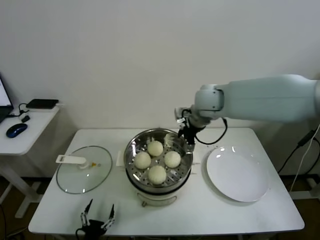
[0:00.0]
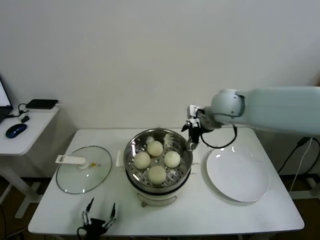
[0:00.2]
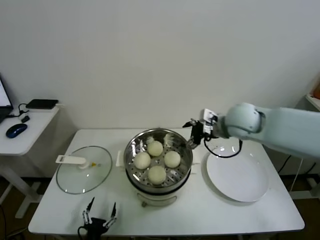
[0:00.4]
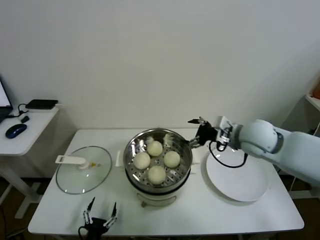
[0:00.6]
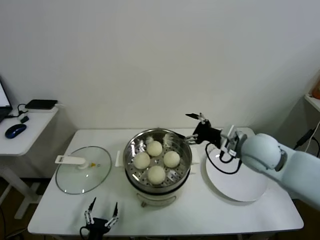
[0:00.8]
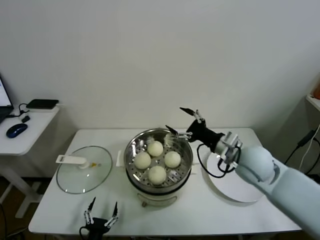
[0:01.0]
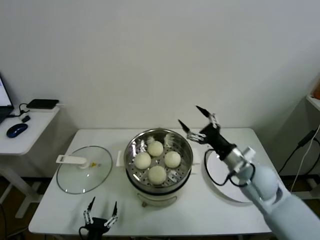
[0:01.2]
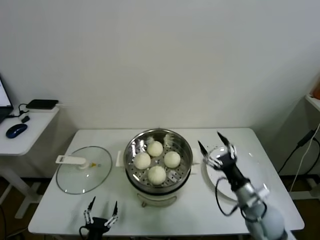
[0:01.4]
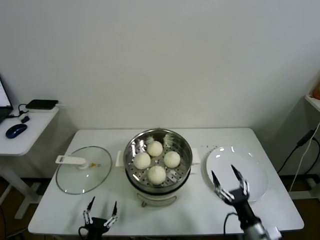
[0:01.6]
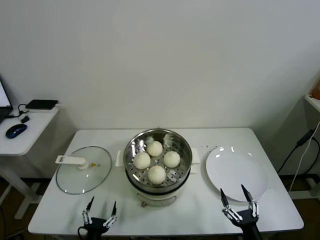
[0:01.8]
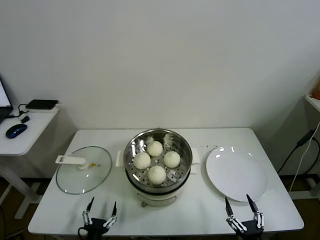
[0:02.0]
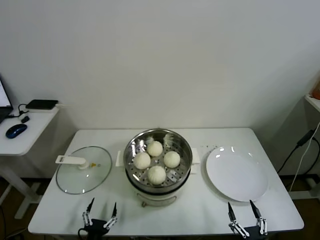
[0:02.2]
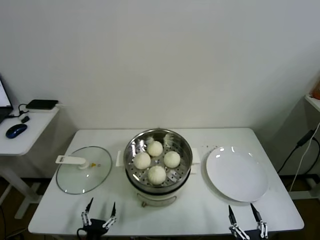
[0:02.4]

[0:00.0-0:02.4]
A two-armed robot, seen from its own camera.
Task of the whole recording: take steamed baozi put them in steamer.
0:00.0 to 0:01.2: The right gripper moves backward, downward and to the right, approximately 25 cm.
0:01.2 to 0:02.4: The right gripper travels backward and downward by some 35 cm.

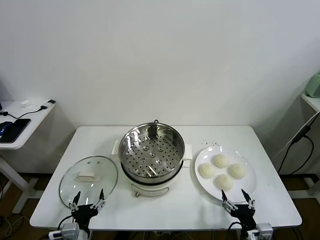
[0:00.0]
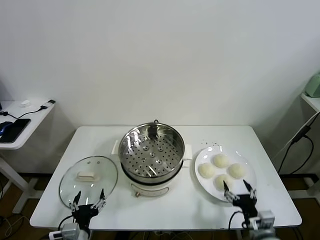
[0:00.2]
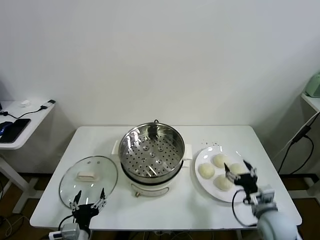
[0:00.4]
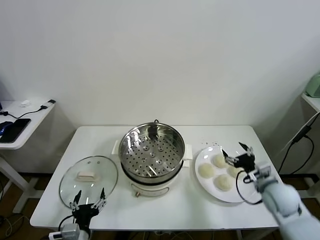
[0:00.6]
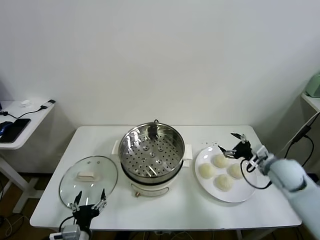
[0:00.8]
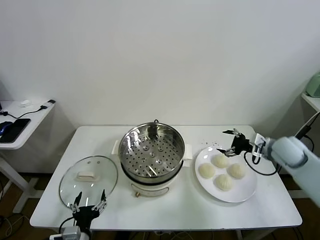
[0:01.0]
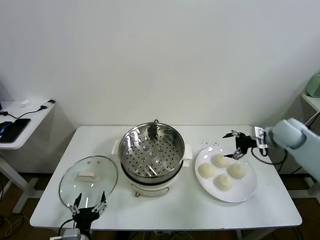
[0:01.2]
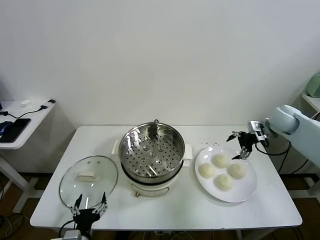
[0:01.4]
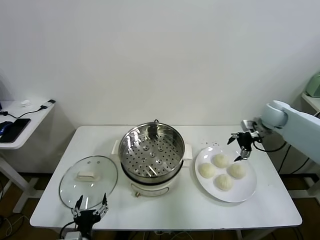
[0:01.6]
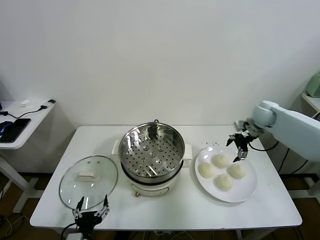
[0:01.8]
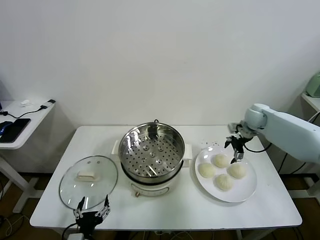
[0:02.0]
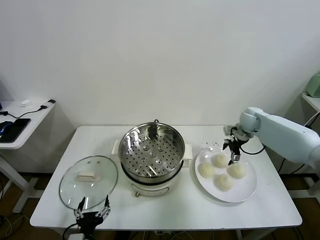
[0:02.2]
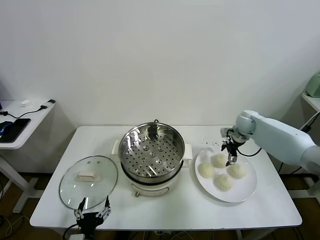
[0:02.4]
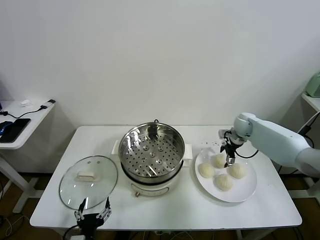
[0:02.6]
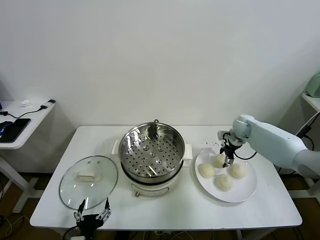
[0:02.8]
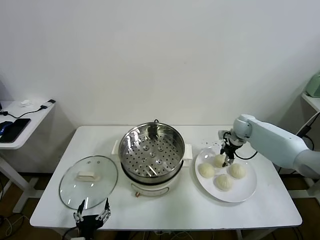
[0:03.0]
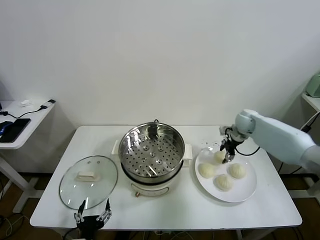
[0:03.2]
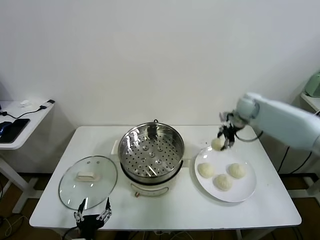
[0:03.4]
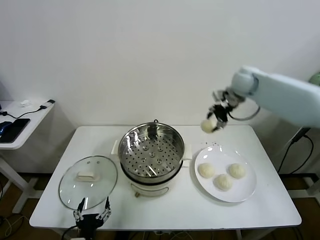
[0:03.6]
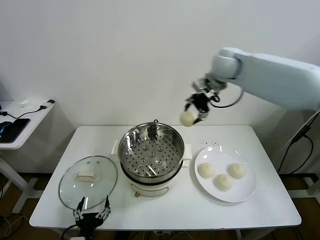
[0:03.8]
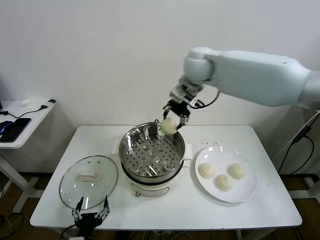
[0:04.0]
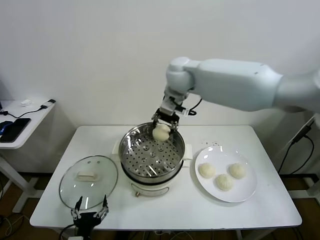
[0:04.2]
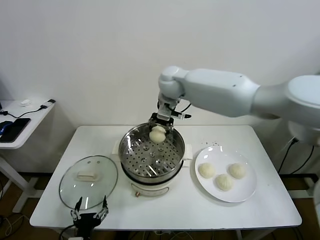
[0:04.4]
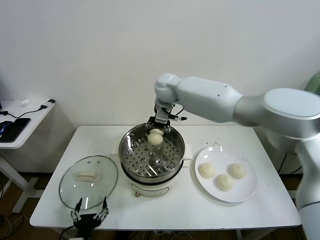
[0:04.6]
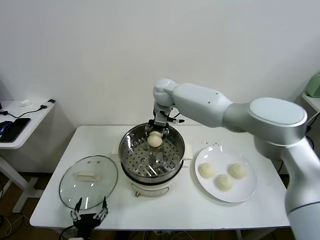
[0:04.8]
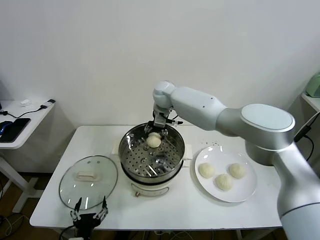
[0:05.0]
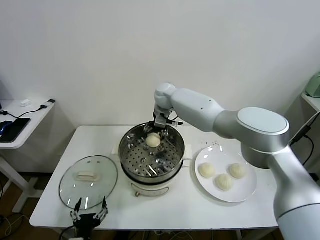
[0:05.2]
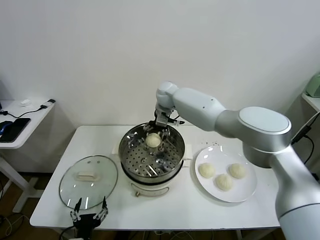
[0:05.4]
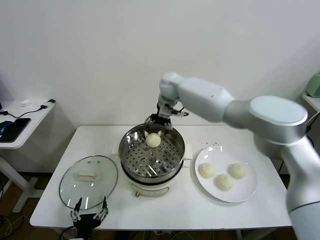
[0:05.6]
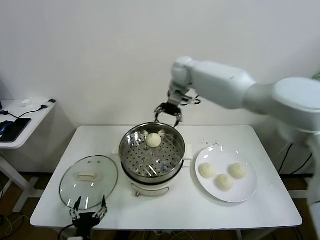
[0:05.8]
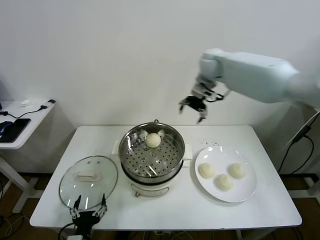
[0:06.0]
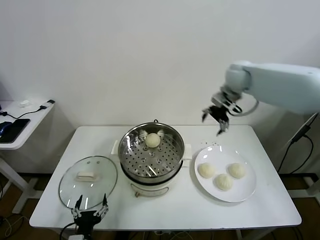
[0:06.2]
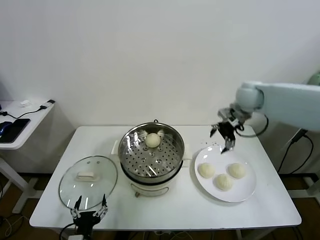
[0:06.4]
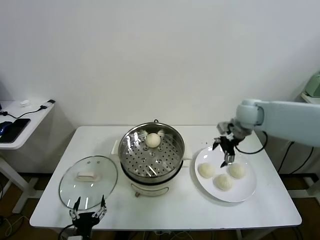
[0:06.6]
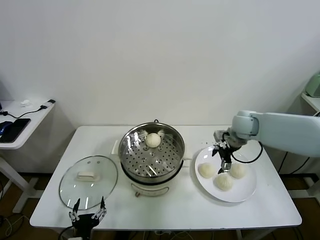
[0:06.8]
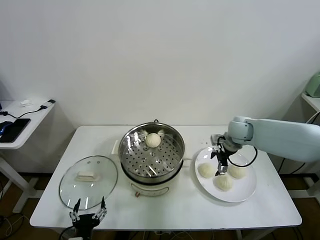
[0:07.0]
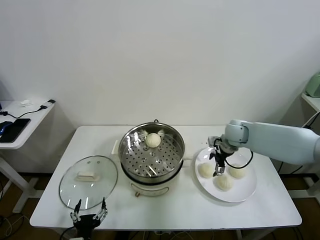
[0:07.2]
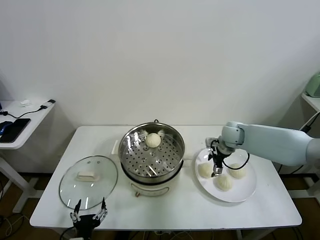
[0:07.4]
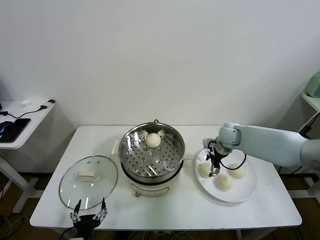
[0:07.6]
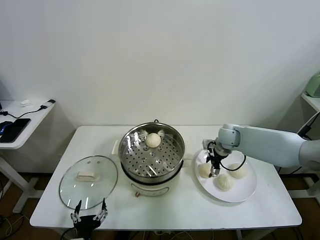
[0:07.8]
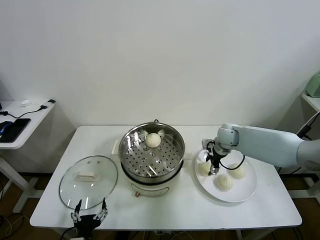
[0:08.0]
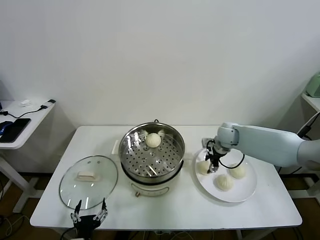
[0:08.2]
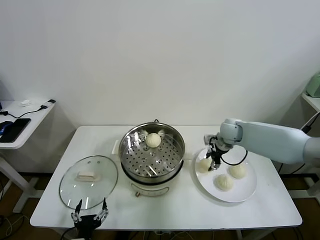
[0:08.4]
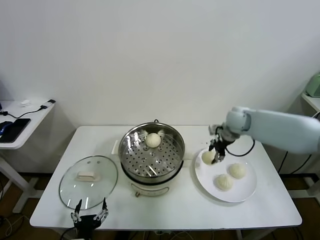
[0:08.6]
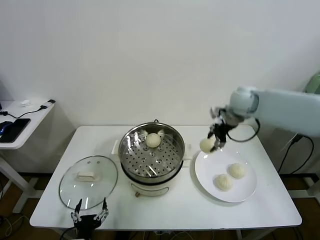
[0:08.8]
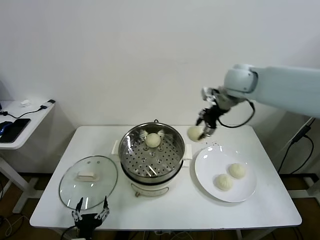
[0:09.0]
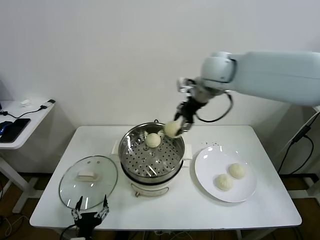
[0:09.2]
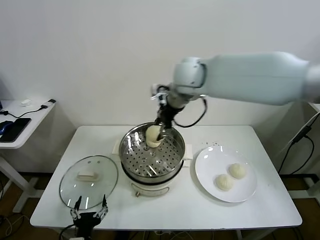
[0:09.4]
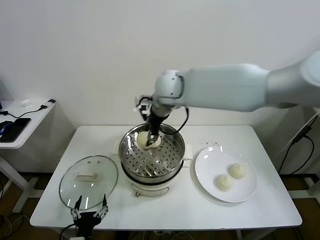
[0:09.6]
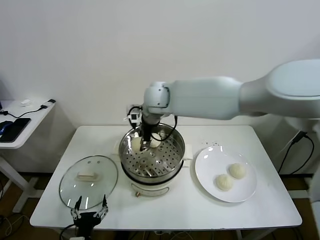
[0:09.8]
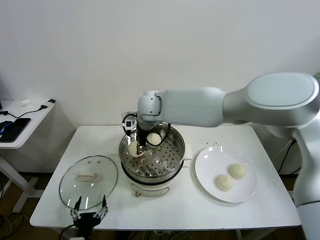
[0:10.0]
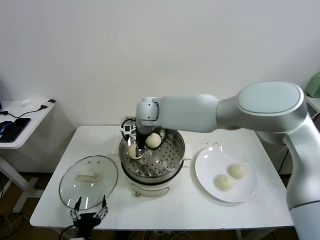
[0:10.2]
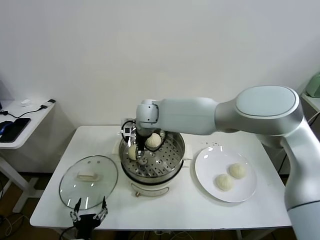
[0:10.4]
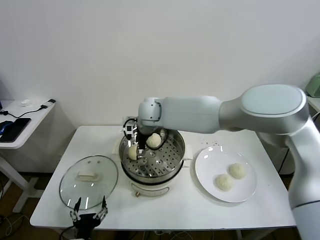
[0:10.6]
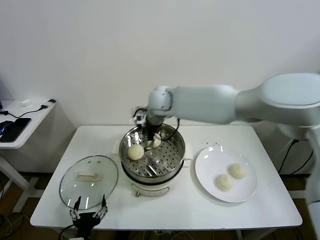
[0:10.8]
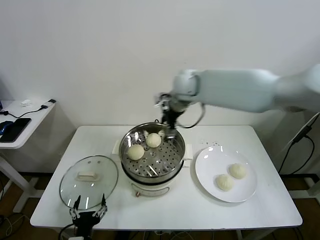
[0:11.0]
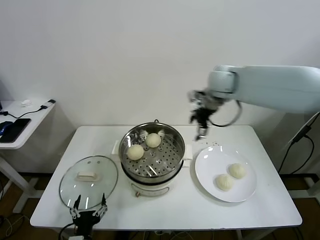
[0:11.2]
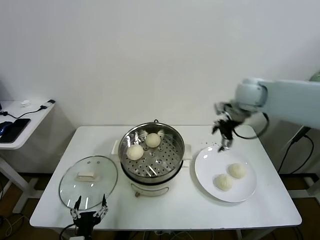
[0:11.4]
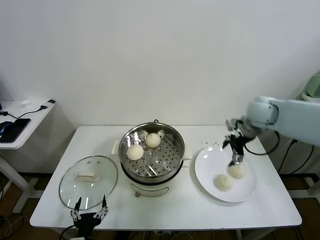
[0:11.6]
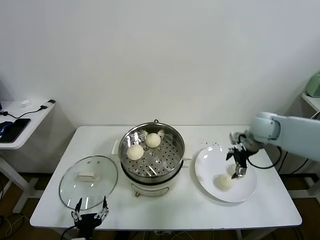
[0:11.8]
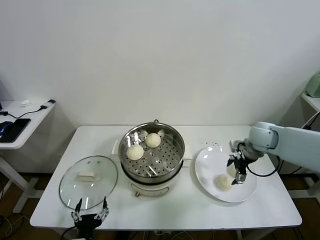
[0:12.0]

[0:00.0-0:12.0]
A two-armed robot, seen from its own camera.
Task of the whole recording: take steamed baozi put them in steamer.
Step, 0:00.0 to 0:02.8: Grasp the baozi in the plate with right gripper.
Step, 0:03.0 to 0:05.4: Place the baozi on the steamer with right gripper.
Step, 0:05.6 to 0:08.0: Grasp the baozi in the plate with right gripper.
Step, 0:08.2 to 0:10.4: Place the baozi on the steamer with right gripper.
0:01.6 to 0:03.0: The right gripper heads downward, covering approximately 10 cm, and closes.
0:03.0 to 0:04.4: The right gripper shifts about 35 cm to the left and upward.
0:04.4 to 0:06.0: The right gripper goes roughly 20 cm to the right, and opens its fingers.
0:06.0 to 0:07.6: The right gripper goes roughly 25 cm downward.
0:07.6 to 0:09.0: The right gripper travels upward by some 25 cm, and closes.
0:09.0 to 0:10.4: The right gripper heads to the left and downward, covering approximately 30 cm, and opens its fingers.
0:10.4 to 0:12.0: The right gripper shifts some 40 cm to the right, and opens its fingers.

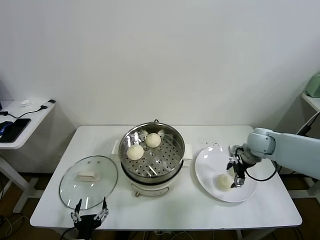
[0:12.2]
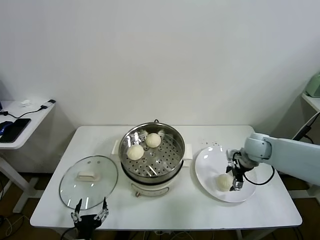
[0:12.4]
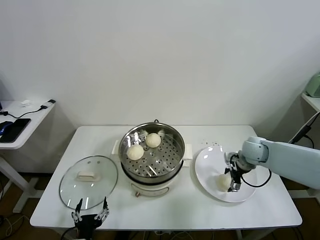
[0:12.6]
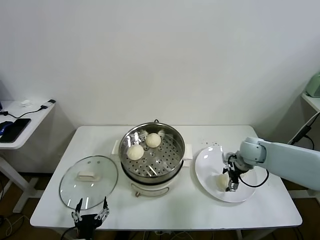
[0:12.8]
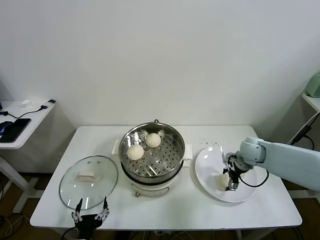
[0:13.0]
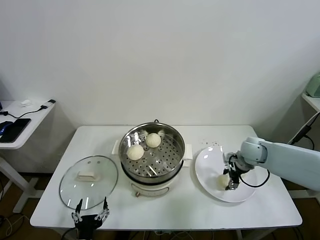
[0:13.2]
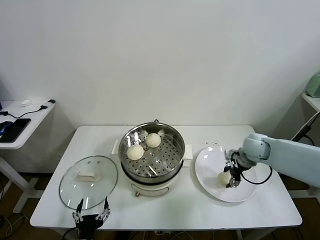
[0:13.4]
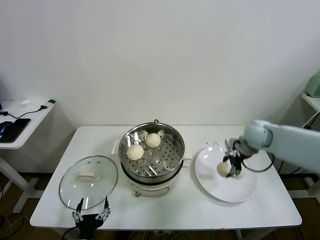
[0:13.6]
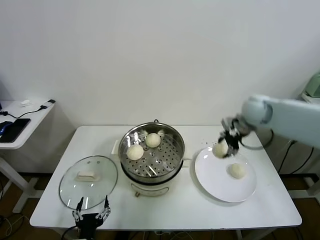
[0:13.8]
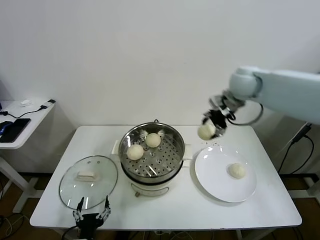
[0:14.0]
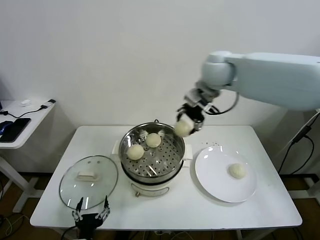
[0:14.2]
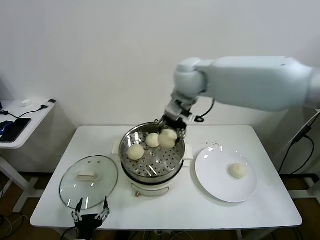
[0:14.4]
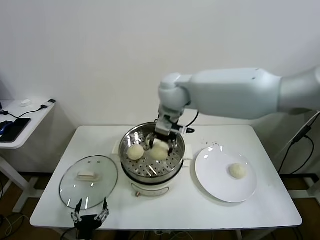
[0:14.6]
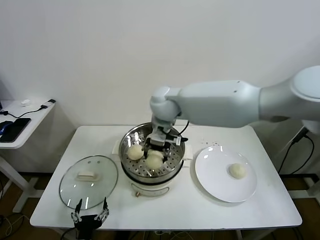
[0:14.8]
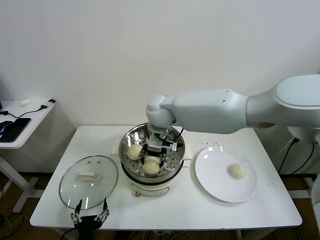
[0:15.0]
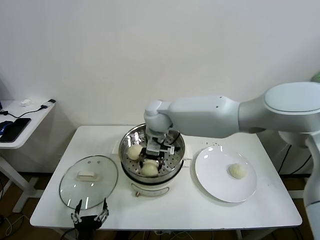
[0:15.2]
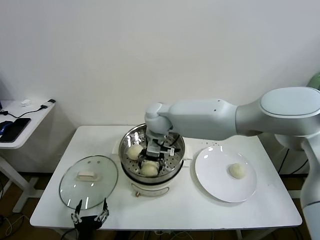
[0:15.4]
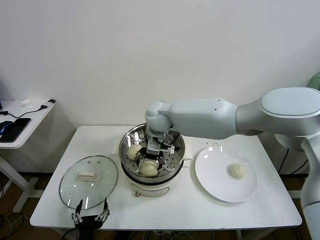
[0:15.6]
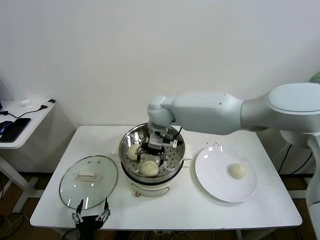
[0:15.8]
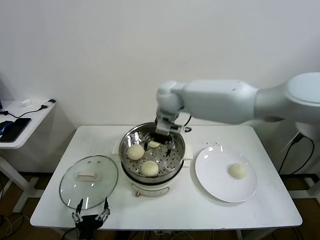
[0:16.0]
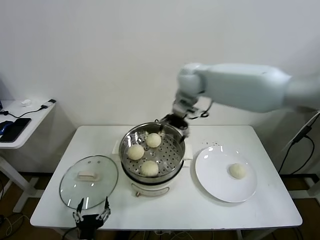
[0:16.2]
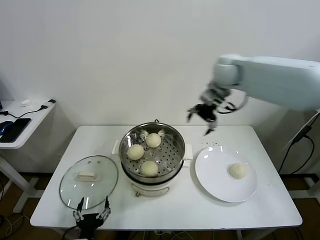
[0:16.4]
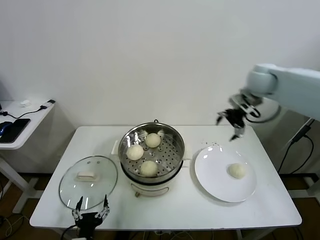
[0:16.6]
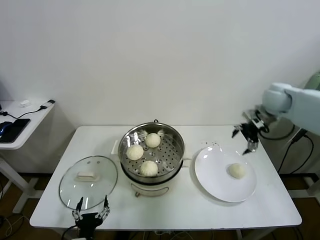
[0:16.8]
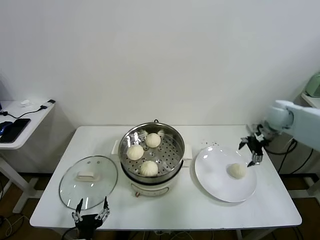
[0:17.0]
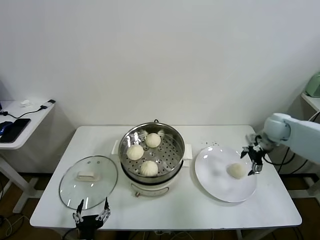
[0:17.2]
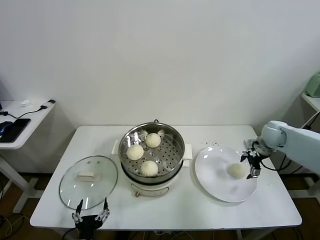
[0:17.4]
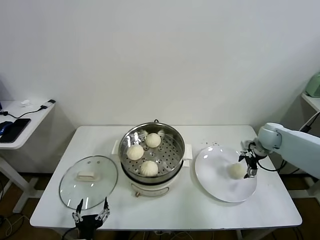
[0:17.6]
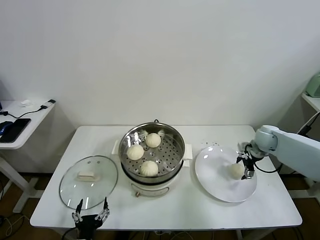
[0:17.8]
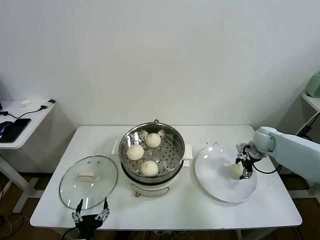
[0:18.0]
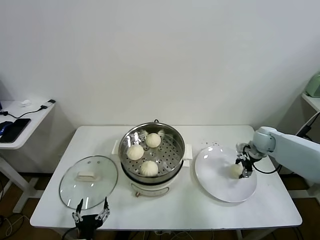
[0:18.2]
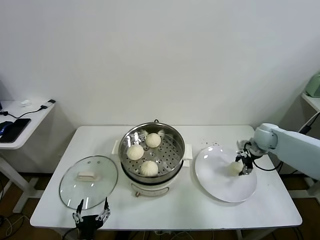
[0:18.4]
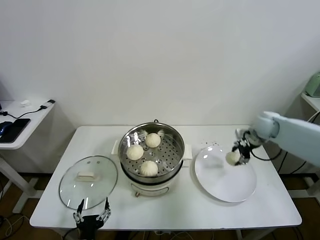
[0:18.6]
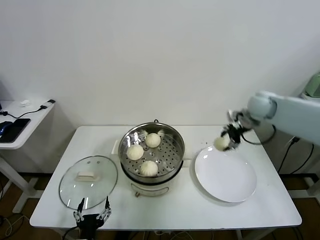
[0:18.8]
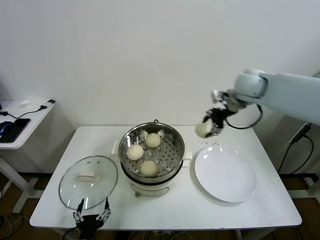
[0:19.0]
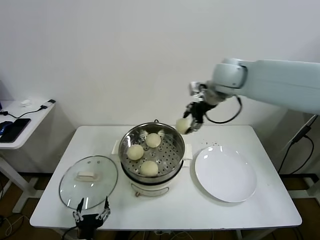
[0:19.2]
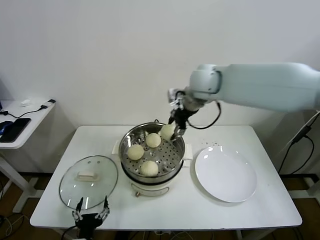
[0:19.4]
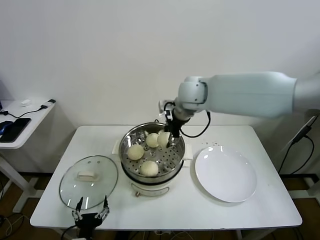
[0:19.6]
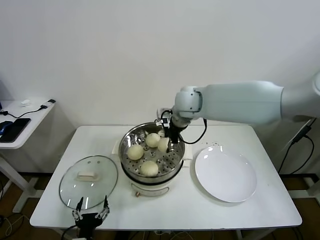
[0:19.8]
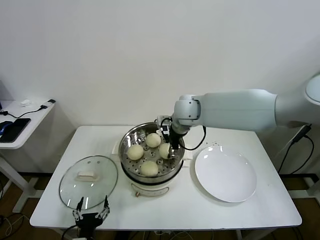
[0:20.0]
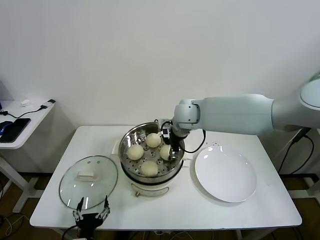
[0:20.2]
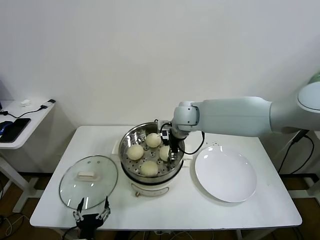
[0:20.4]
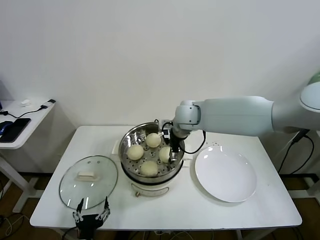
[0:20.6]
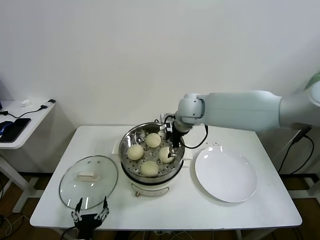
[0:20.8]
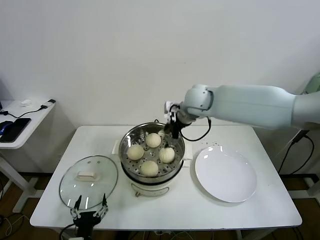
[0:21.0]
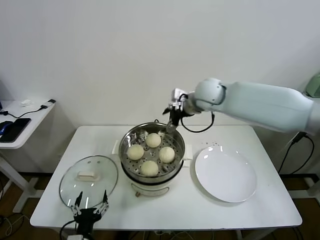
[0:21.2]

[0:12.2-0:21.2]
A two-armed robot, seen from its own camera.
Task of the whole recording: take steamed baozi put them in steamer.
Step, 0:13.2 to 0:15.6: Place the baozi on the steamer with right gripper.
Step, 0:15.8 to 0:18.2: Grasp the baozi in the plate with right gripper.
Step, 0:18.4 to 0:20.6: Place the baozi on the steamer with right gripper.
0:12.2 to 0:13.8: The right gripper shifts roughly 15 cm upward, and closes its fingers.
0:13.8 to 0:15.2: The right gripper heads to the left, covering approximately 30 cm.
0:15.2 to 0:16.6: The right gripper moves to the right, some 35 cm, and opens.
0:16.6 to 0:18.2: The right gripper travels downward by some 25 cm, and closes up.
0:18.2 to 0:19.8: The right gripper shifts approximately 35 cm to the left and upward.
0:19.8 to 0:21.2: The right gripper moves to the right, approximately 5 cm, and opens.
